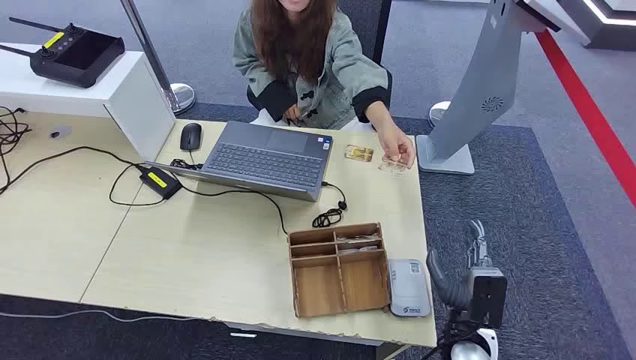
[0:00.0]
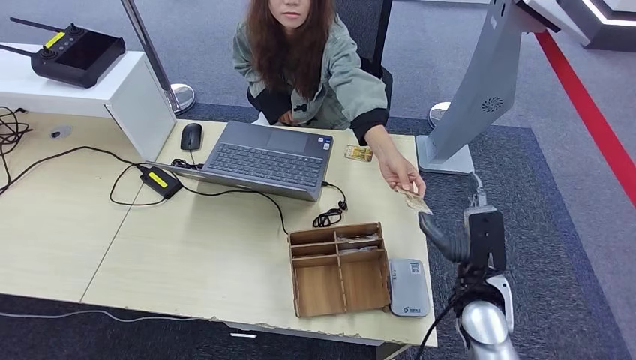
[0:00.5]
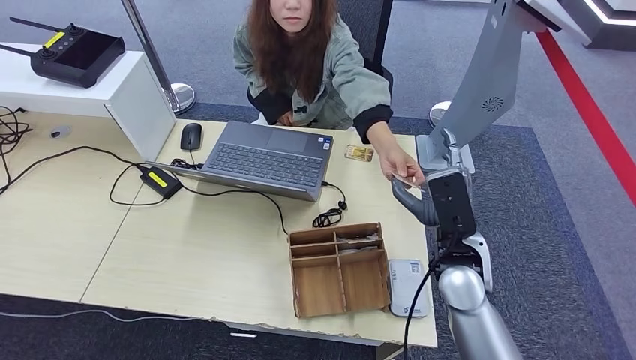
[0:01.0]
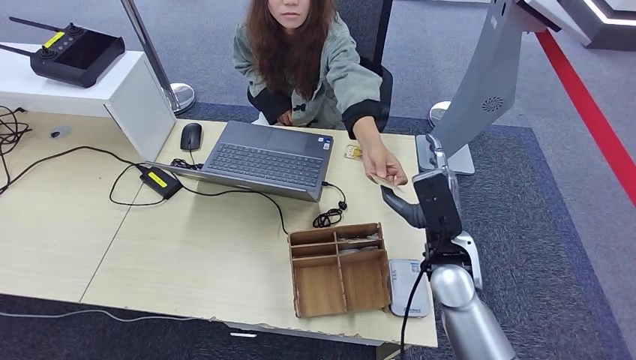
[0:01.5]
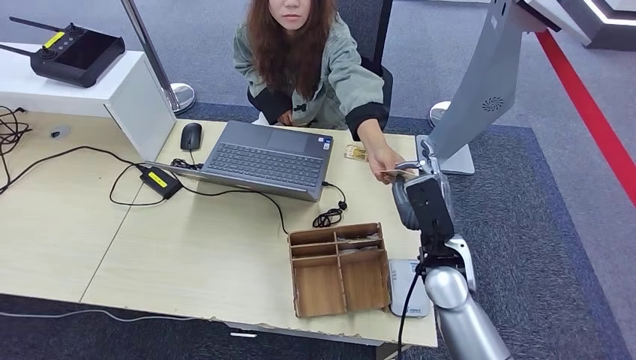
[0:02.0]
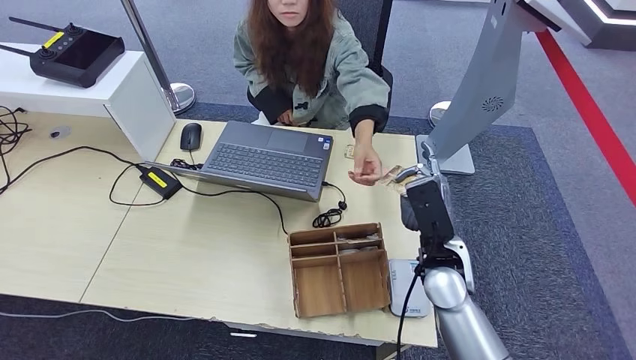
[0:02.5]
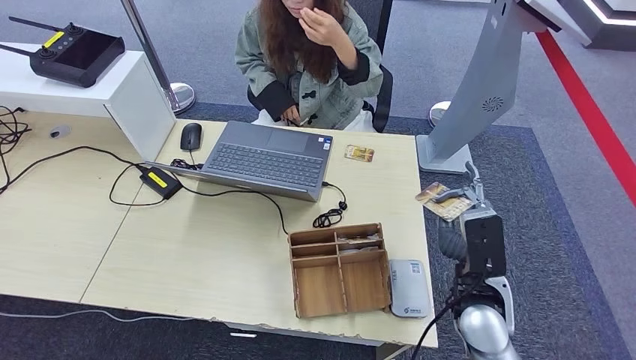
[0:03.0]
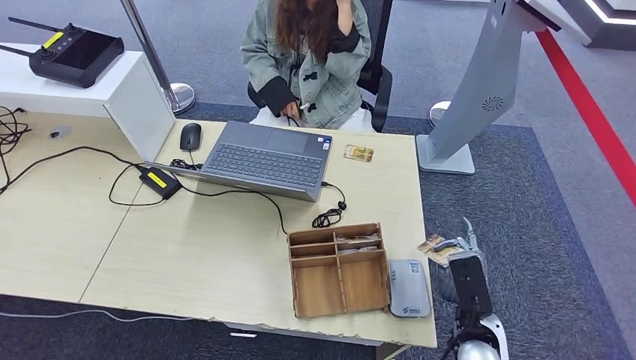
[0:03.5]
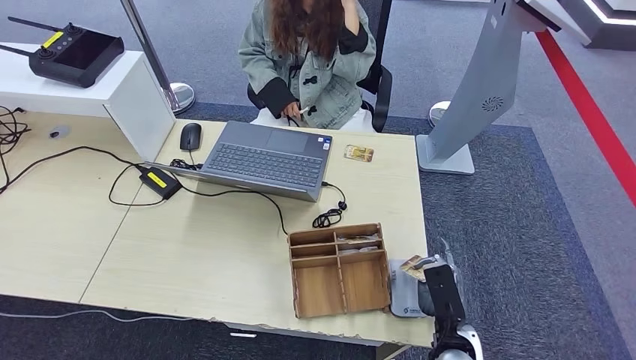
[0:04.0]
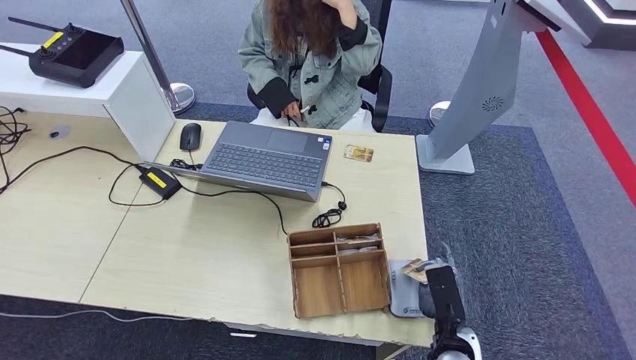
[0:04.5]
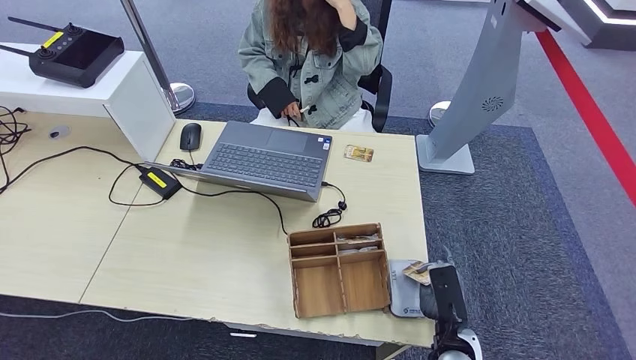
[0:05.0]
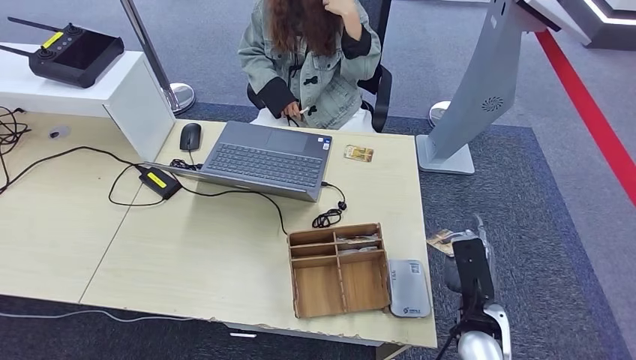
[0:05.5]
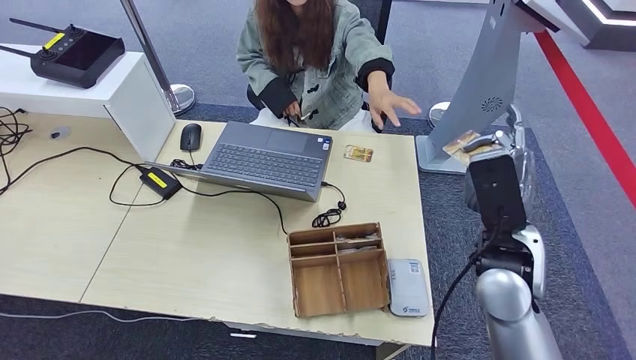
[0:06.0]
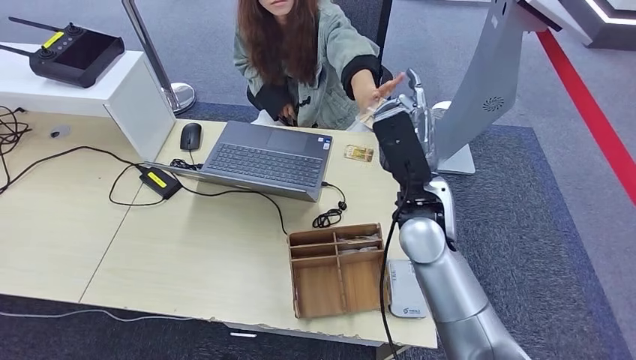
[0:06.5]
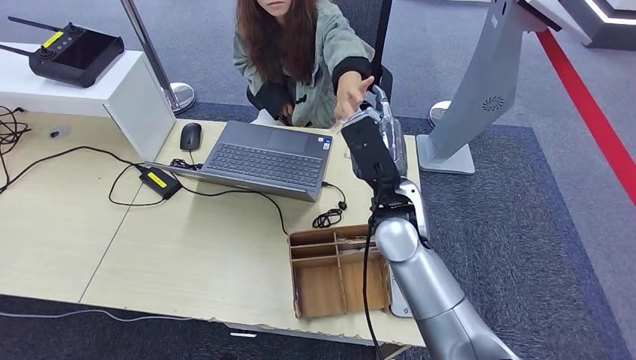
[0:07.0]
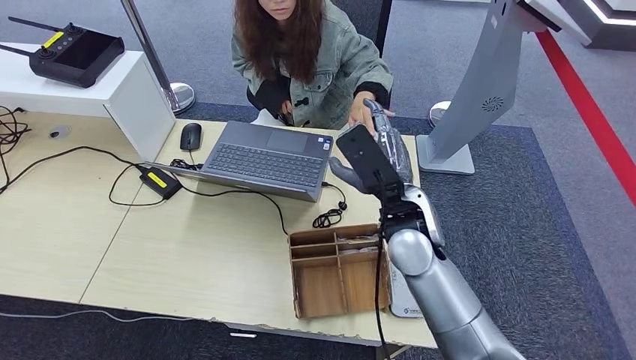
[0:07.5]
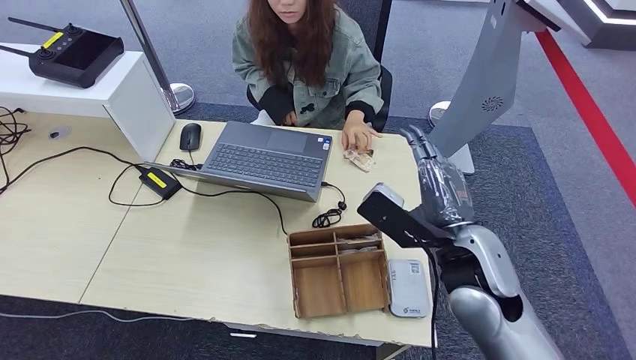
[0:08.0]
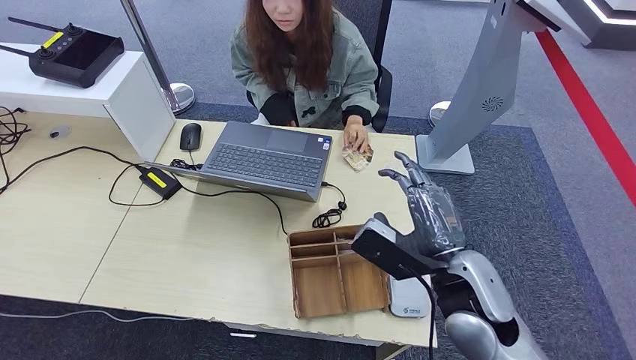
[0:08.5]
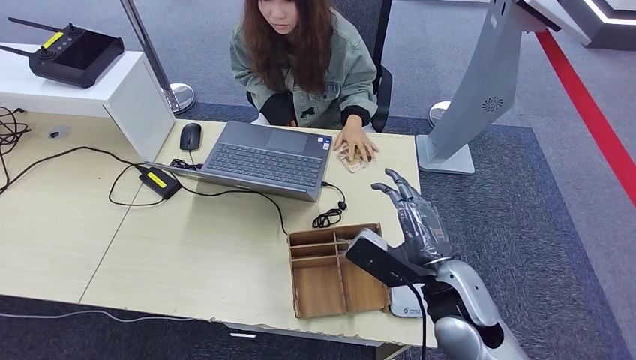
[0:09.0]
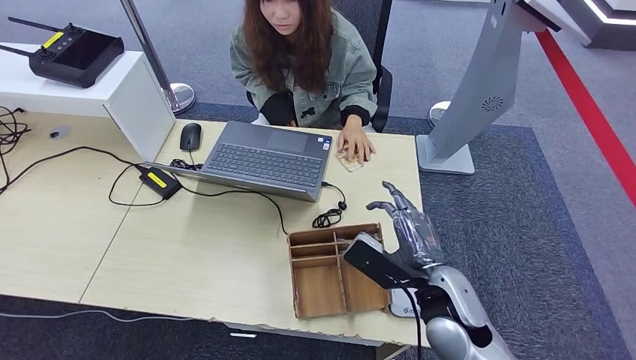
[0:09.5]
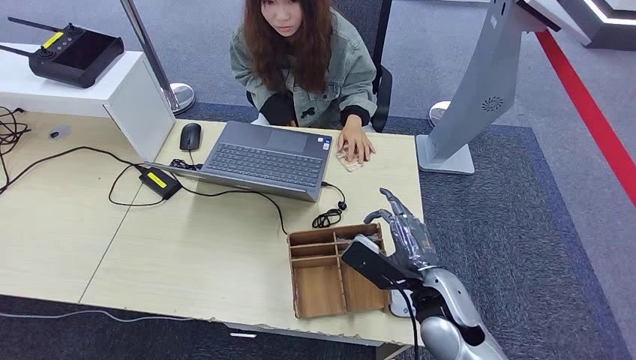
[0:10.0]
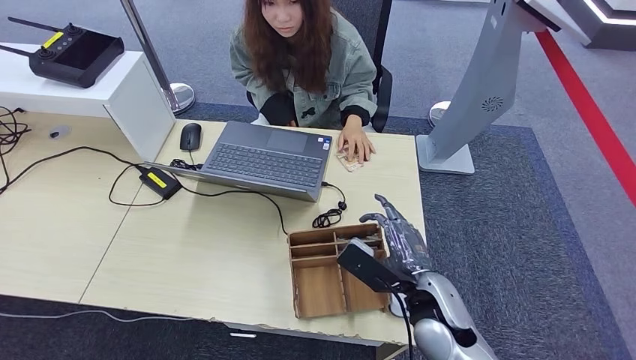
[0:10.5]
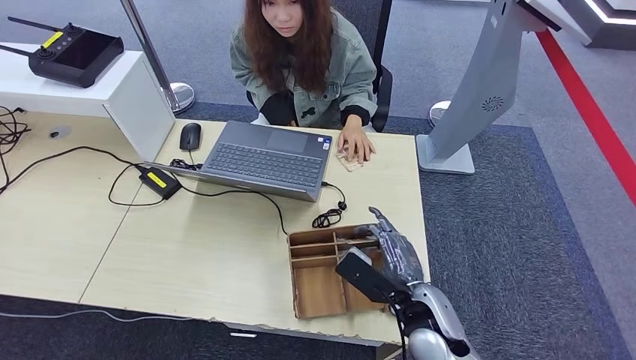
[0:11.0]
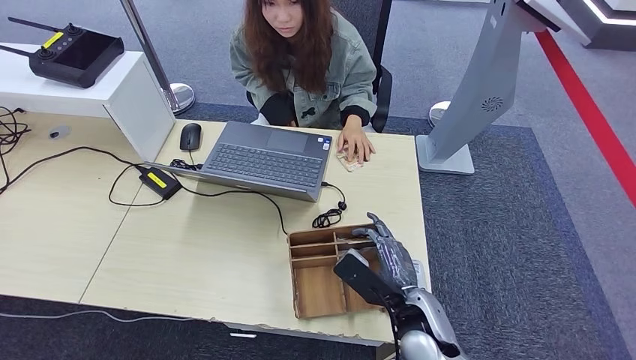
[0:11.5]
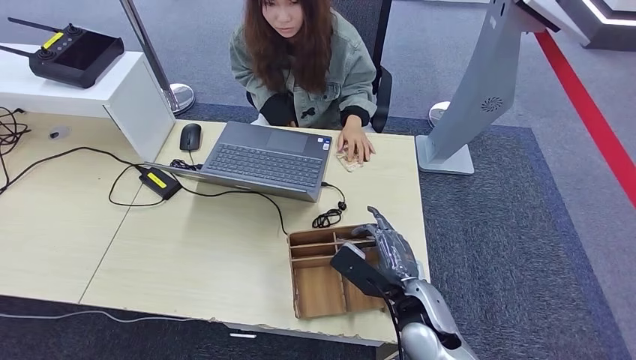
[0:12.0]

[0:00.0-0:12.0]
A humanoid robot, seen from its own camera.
Step, 0:00.0 to 0:02.5: Take the ID card from the person's hand.
Step, 0:03.0 to 0:04.5: Place the ID card on the card reader.
Step, 0:05.0 to 0:09.5: Hand the ID card to the person.
0:02.0 to 0:04.0: The right hand travels backward and downward by some 20 cm.
0:04.0 to 0:06.0: The right hand goes approximately 25 cm upward and forward.
0:06.0 to 0:08.0: The right hand goes to the left and returns, roughly 15 cm each way.
0:08.0 to 0:10.0: The right hand travels downward by about 10 cm.

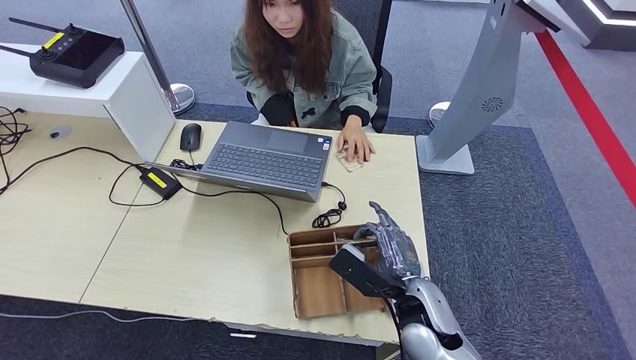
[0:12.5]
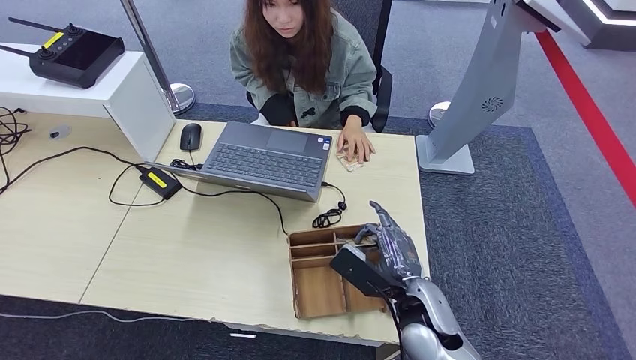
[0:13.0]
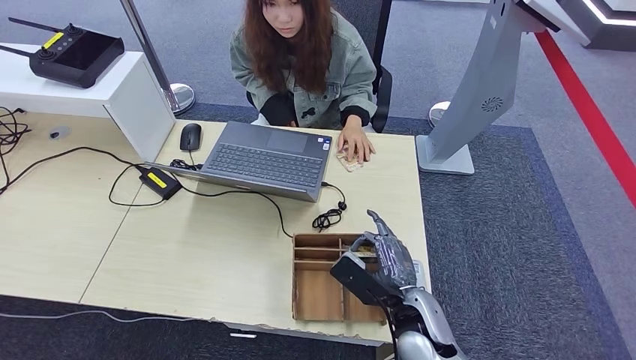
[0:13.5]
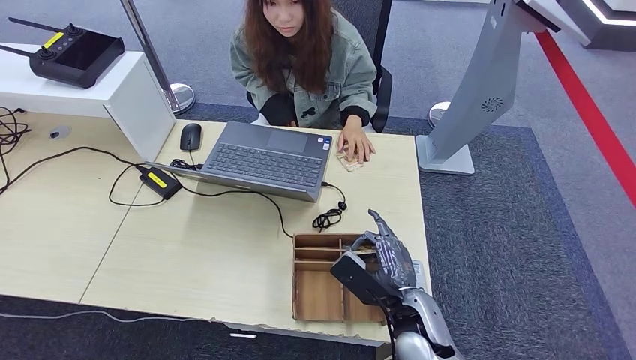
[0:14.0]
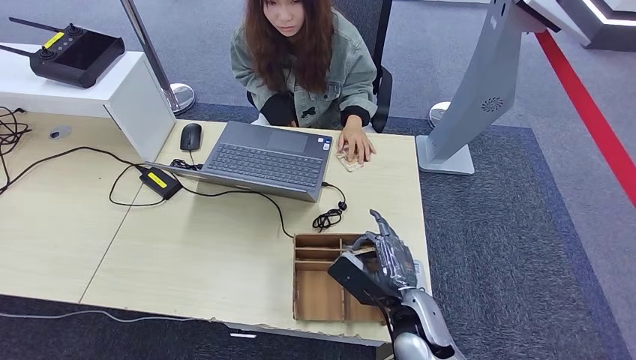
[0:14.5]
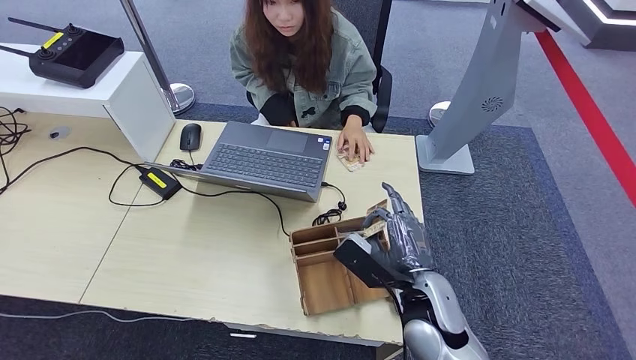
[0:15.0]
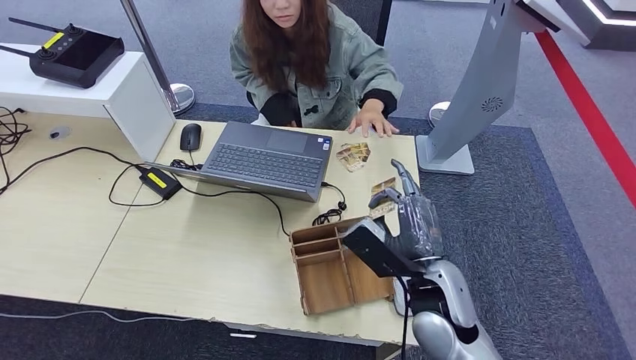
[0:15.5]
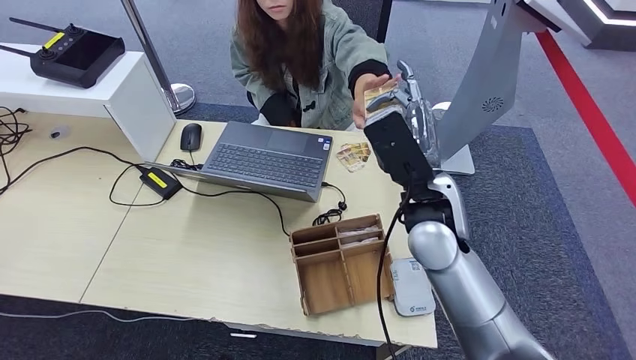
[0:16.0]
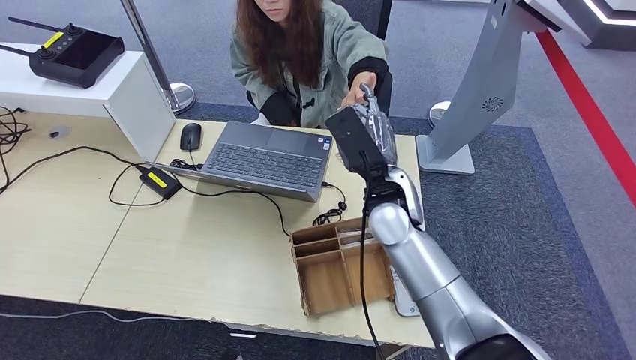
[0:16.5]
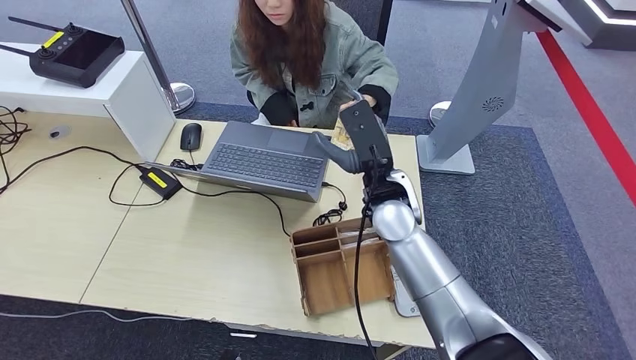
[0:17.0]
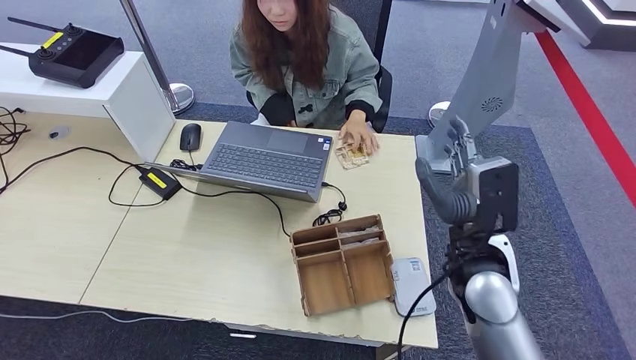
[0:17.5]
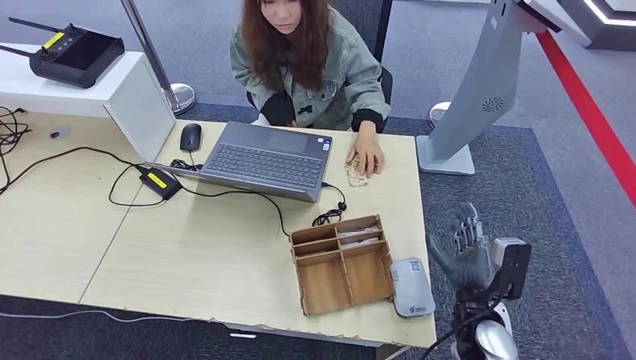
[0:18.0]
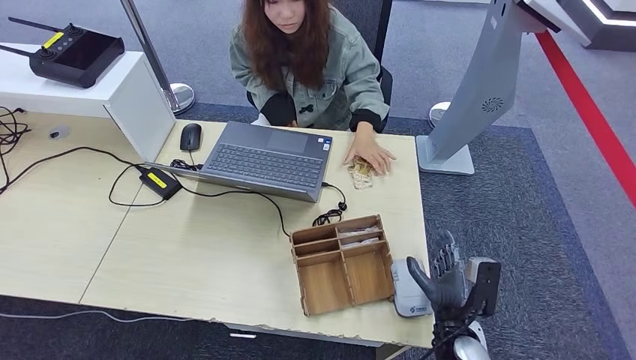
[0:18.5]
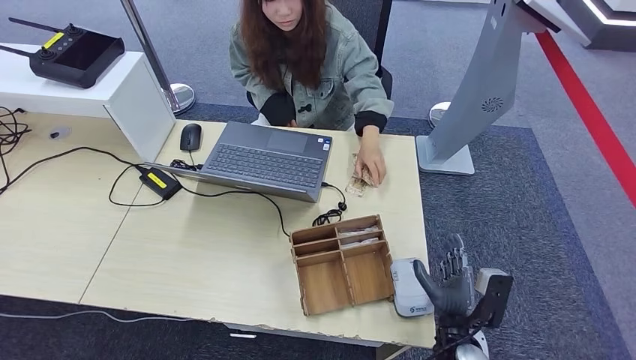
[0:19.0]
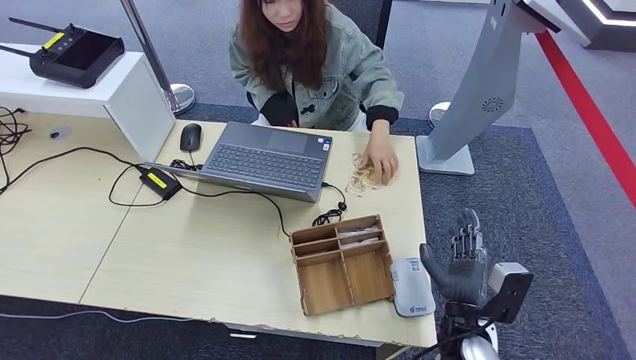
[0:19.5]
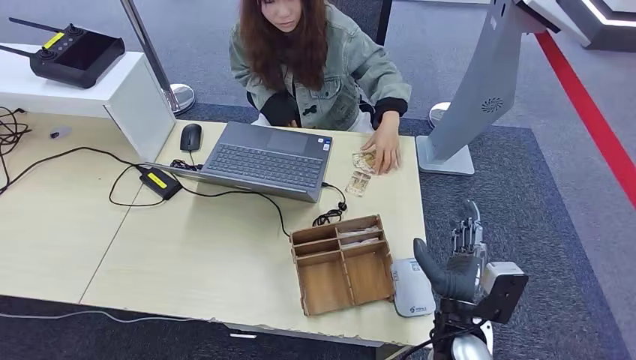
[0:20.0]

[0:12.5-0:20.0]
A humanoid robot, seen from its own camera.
Step, 0:12.5 to 0:15.0: Pick up the room key from the key card box.
Step, 0:15.5 to 0:19.5: Hand the room key to the person.
0:12.5 to 0:14.5: The hands make only small movements.
0:14.5 to 0:16.5: The right hand shifts about 20 cm forward and upward.
0:16.5 to 0:18.0: The right hand moves backward, to the right and downward, approximately 30 cm.
0:18.0 to 0:20.0: The right hand heads to the left, covering some 5 cm.
